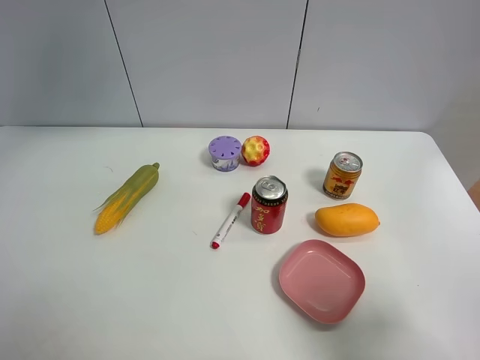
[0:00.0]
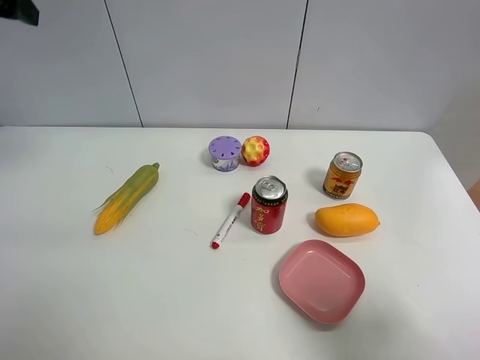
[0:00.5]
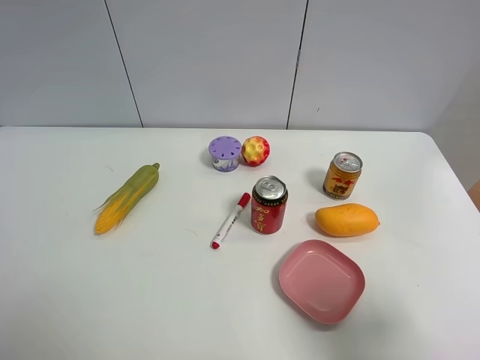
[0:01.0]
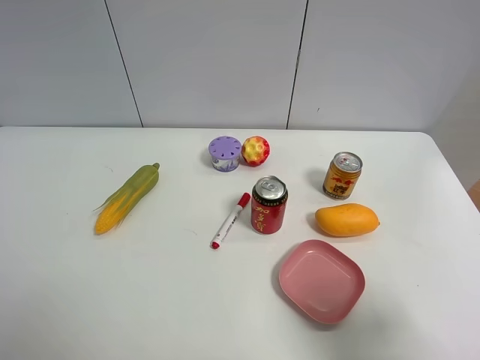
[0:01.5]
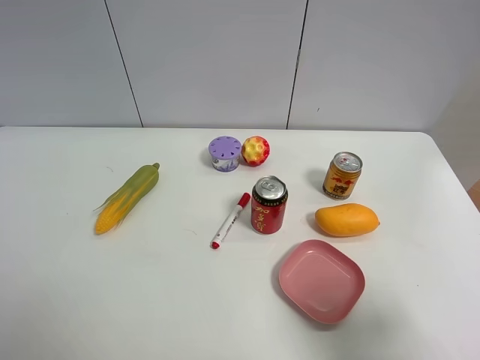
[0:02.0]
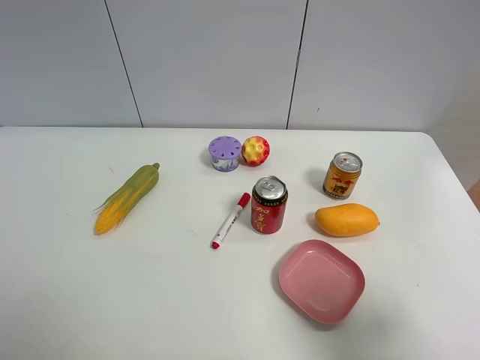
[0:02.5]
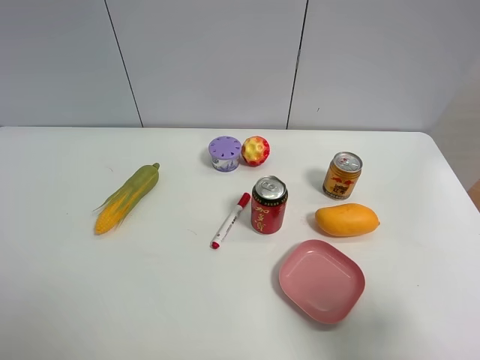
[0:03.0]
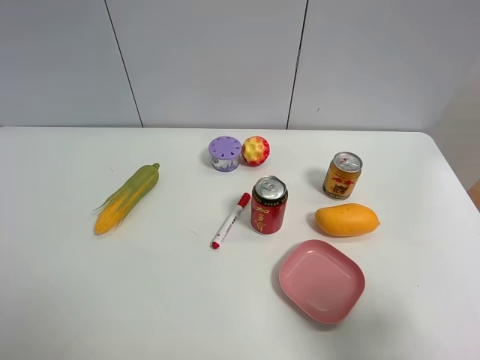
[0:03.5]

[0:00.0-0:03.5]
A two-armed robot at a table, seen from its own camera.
Task of the whole recording: the gripper move the object.
0:00.0 to 0:02.0: The left gripper shifts about 40 cm backward.

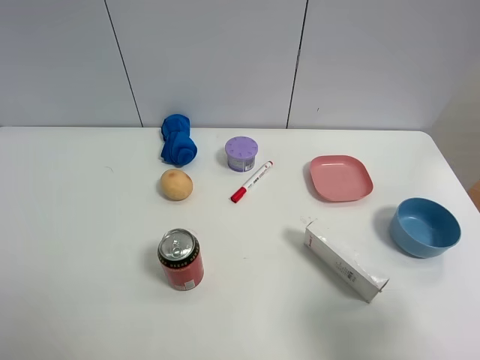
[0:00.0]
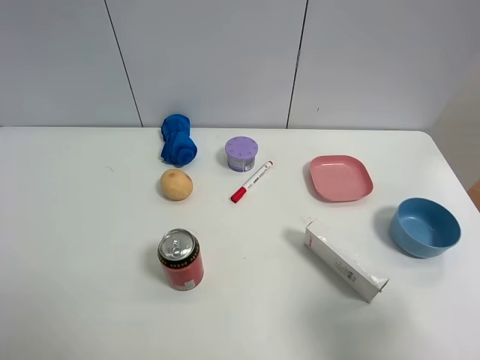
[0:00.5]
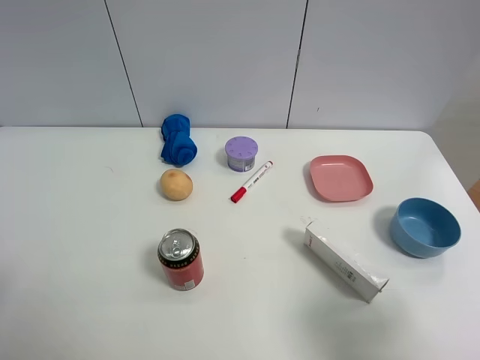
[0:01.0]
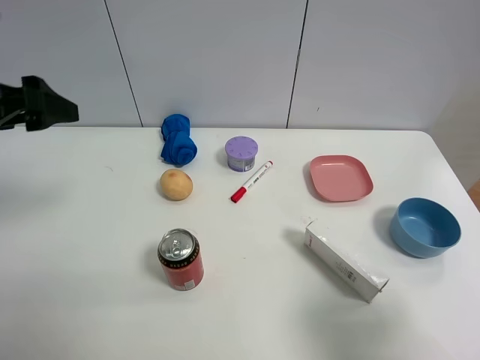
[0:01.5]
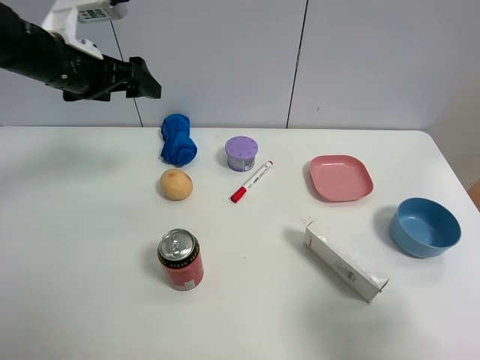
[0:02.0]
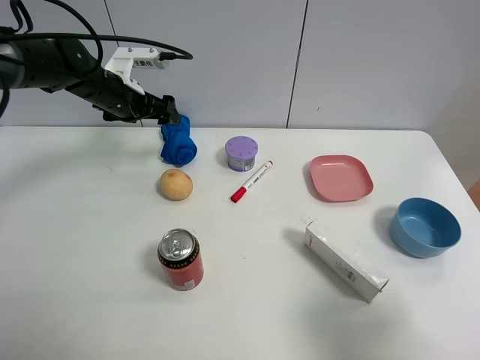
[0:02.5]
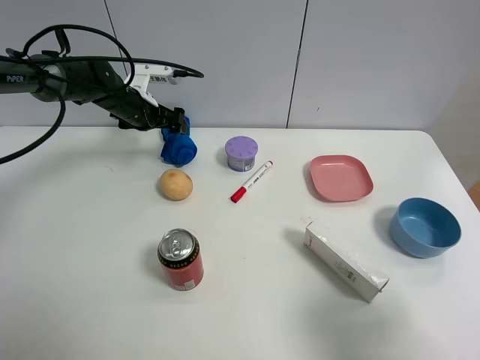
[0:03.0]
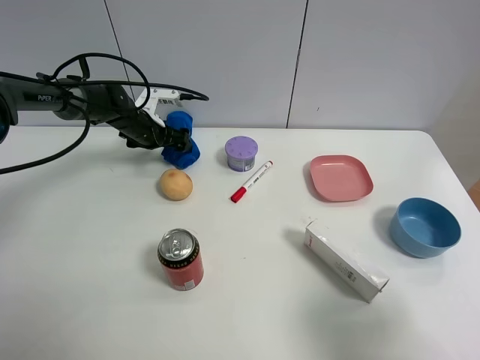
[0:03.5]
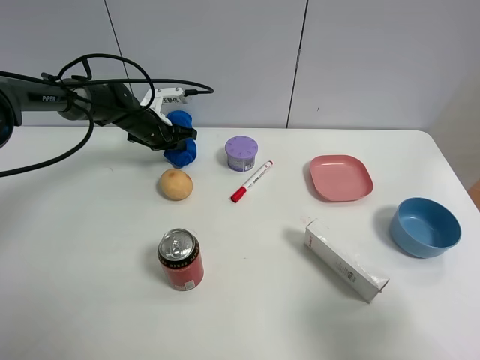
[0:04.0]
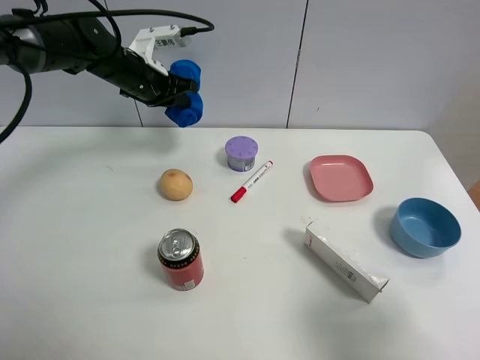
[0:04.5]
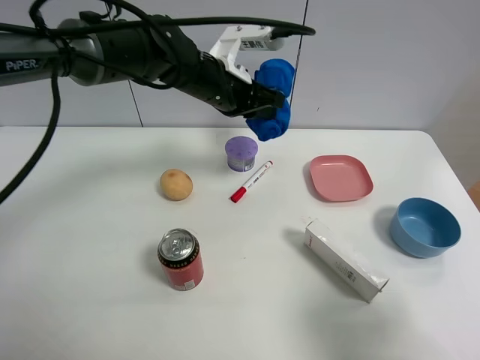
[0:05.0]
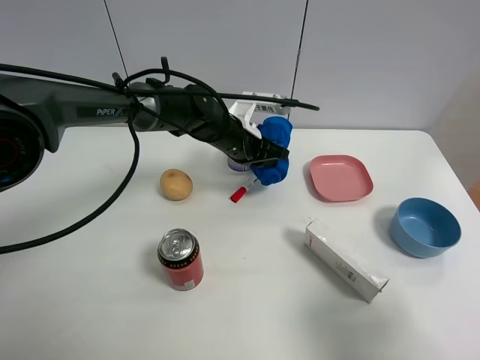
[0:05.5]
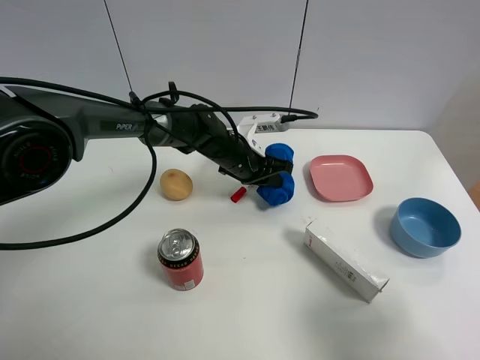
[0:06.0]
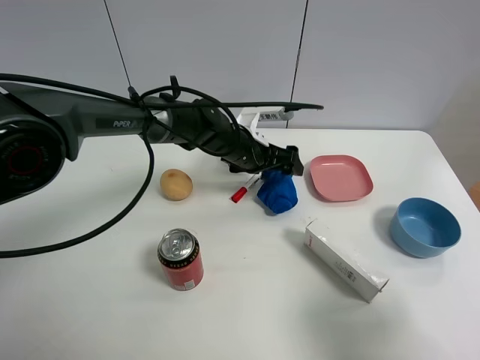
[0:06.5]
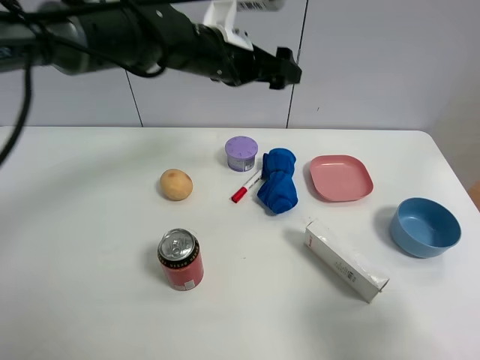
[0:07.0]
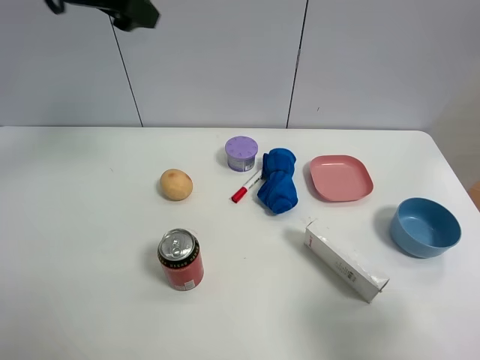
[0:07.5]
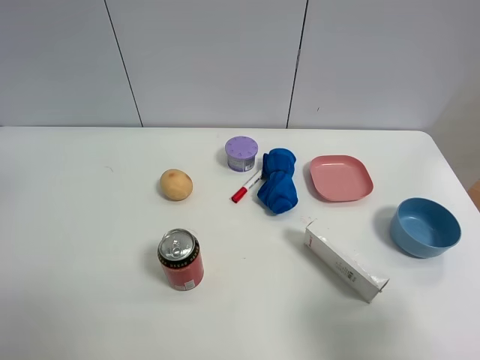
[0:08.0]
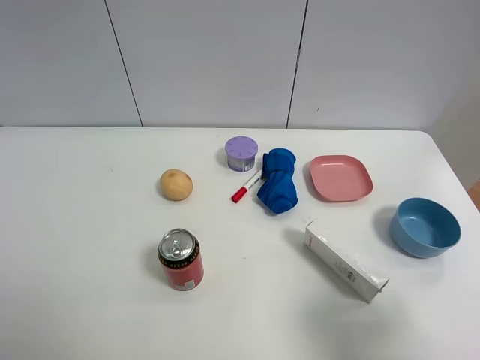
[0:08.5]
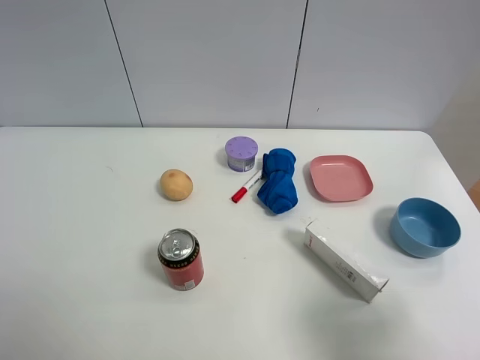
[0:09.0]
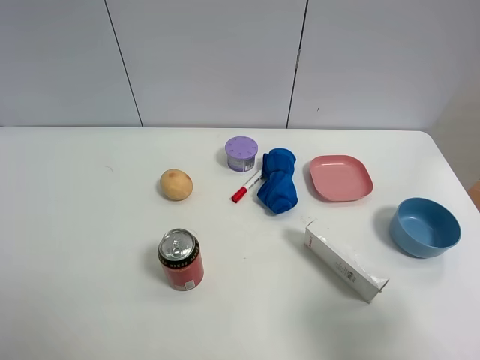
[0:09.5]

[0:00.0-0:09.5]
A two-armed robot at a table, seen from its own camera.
Task of the whole recording: the gripper move the object.
Step, 0:00.0 to 0:03.5: Grasp the blue towel with the left gripper.
Step, 0:04.0 to 0:06.0: Place the blue towel on the table with the left gripper.
0:00.0 to 0:02.0: The left gripper travels forward by roughly 35 cm.
0:02.0 to 0:04.0: The left gripper moves downward and forward, approximately 20 cm, and closes its fingers.
0:04.0 to 0:05.5: The left gripper heads to the right and backward, covering about 20 cm.
0:05.5 to 0:07.5: The left gripper travels upward and to the left by some 35 cm, and opens its fingers.
0:07.5 to 0:09.5: The left gripper goes about 35 cm backward.

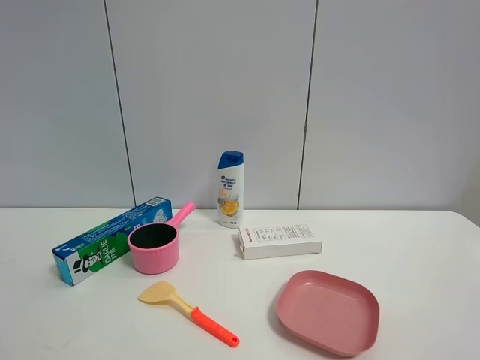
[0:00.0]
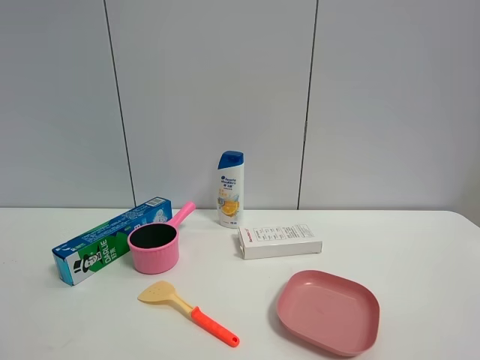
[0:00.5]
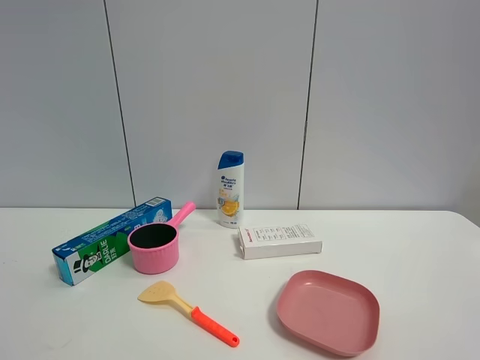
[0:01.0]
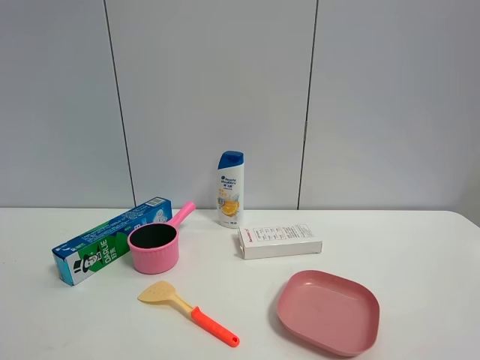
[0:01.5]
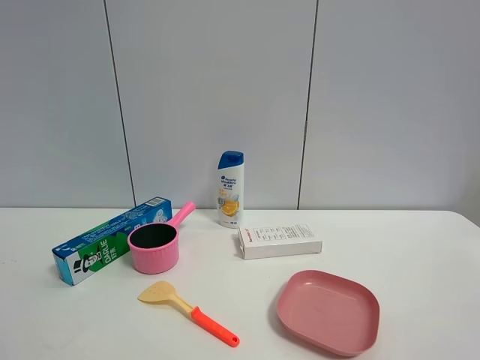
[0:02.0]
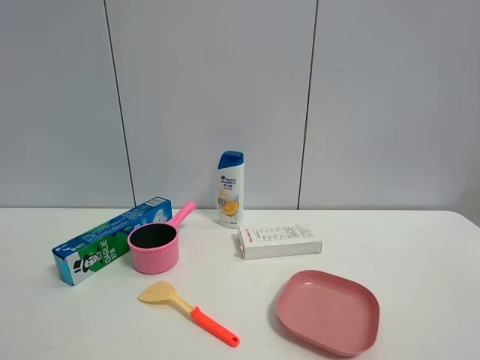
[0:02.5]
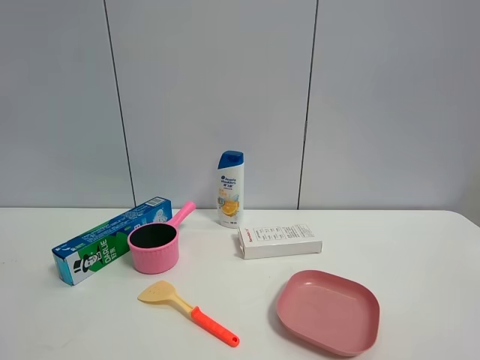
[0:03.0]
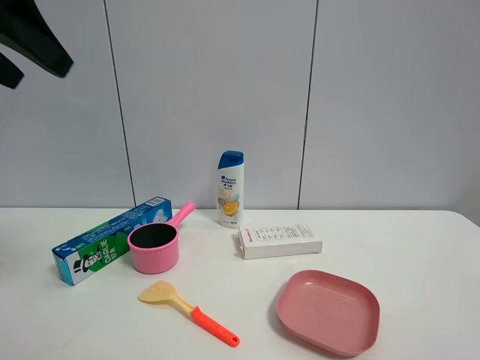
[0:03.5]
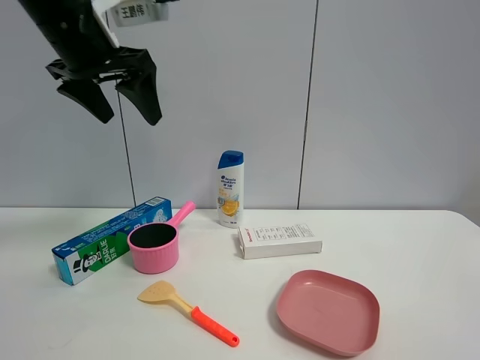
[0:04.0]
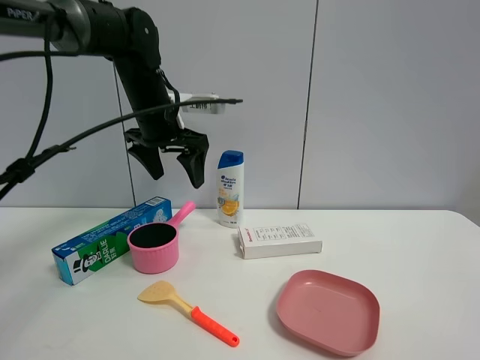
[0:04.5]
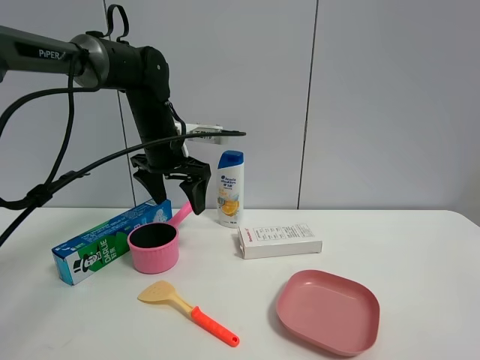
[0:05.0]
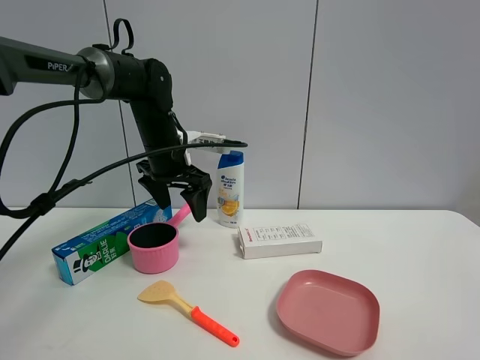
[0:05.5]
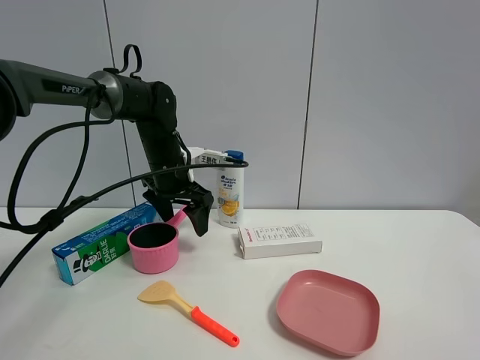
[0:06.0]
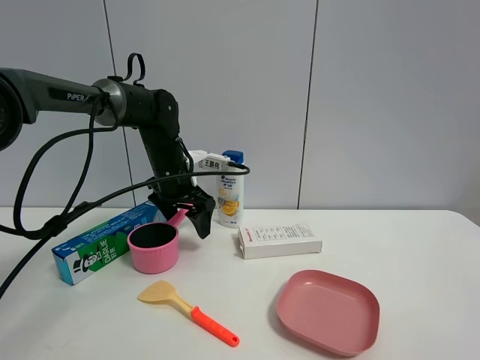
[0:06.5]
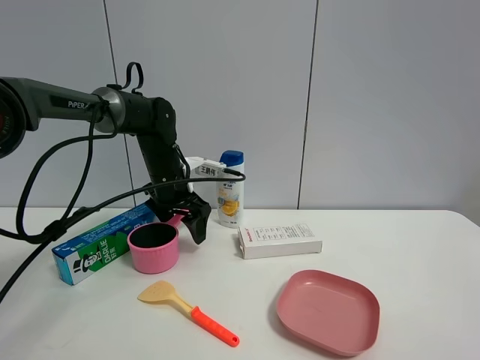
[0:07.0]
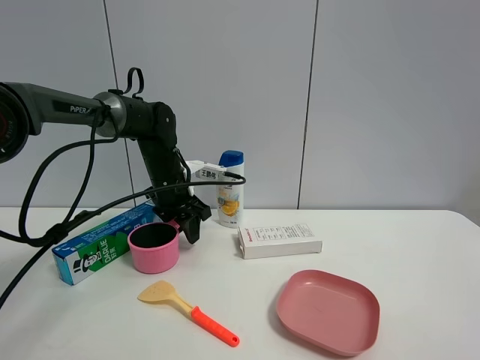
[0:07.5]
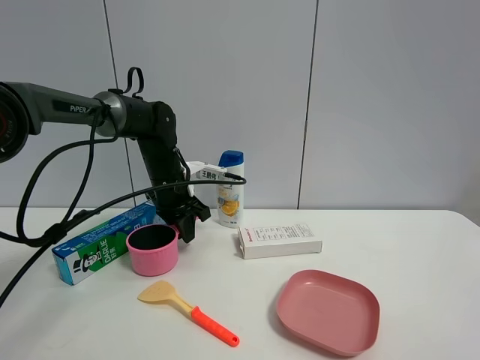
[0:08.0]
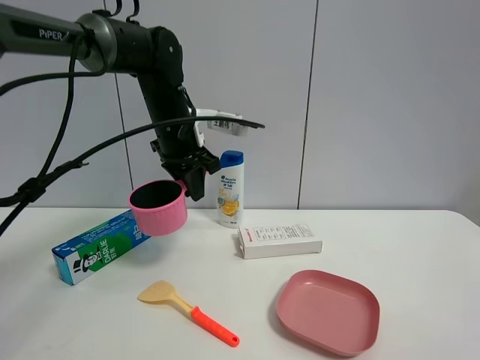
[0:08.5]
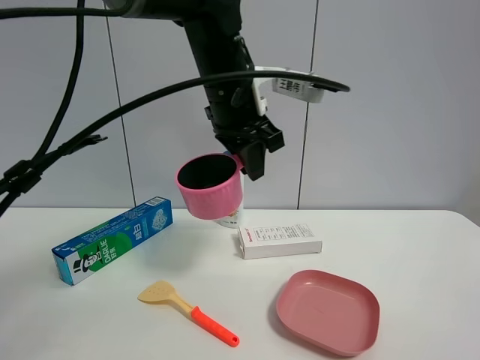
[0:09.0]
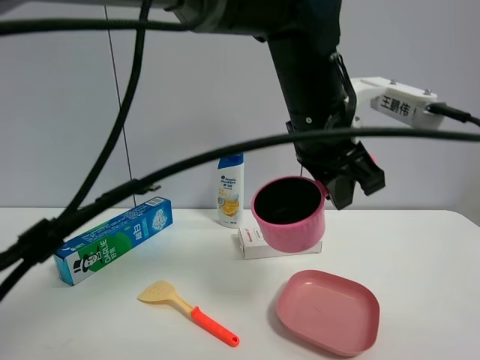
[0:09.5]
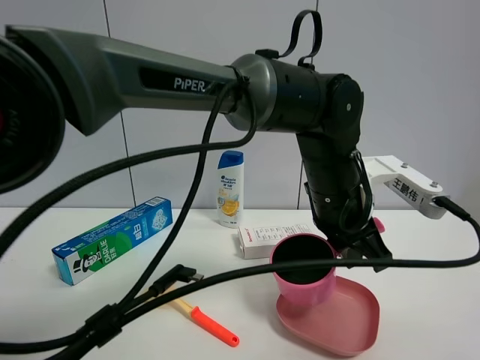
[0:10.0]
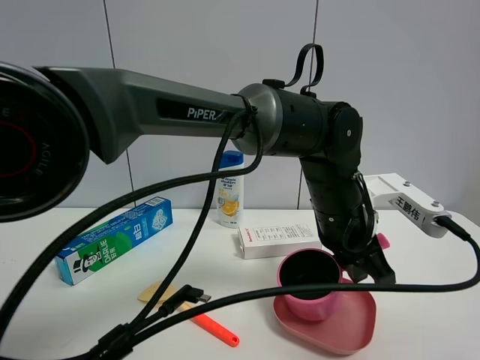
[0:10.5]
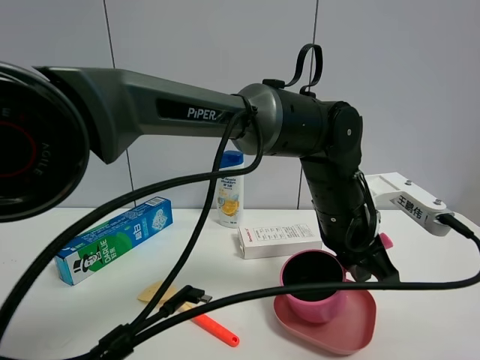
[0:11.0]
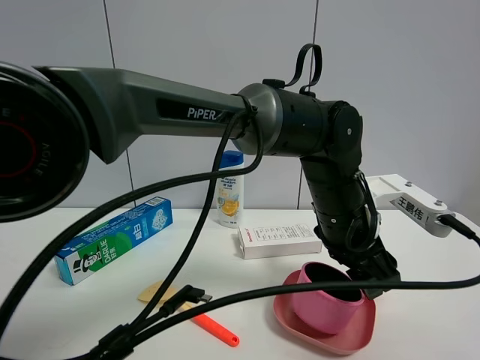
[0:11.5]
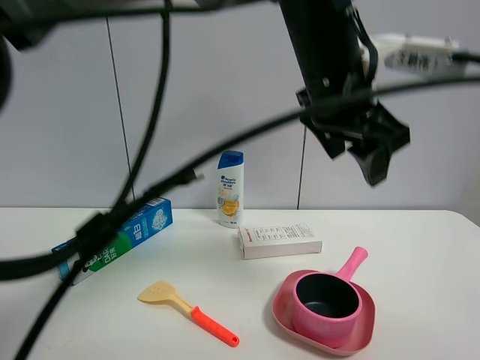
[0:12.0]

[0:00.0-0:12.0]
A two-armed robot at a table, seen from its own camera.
Task of the whole recording: the gripper move the object.
Step, 0:00.0 to 0:07.5: Grasp the pink pot with the left gripper.
0:00.0 to 0:02.0: Both grippers stay put.
0:02.0 to 0:04.0: The left gripper shifts approximately 40 cm forward.
0:04.0 to 0:06.0: The left gripper travels downward and forward by roughly 20 cm.
0:06.0 to 0:08.0: The left gripper closes up.
0:08.0 to 0:10.0: The left gripper is displaced to the right and backward by roughly 30 cm.
0:10.0 to 0:12.0: The left gripper moves upward, approximately 15 cm, and opens its fingers.
